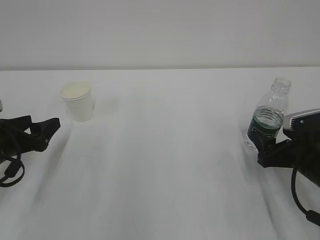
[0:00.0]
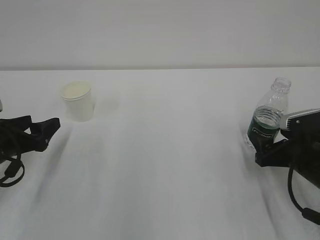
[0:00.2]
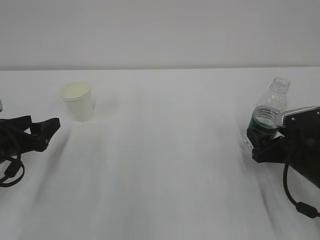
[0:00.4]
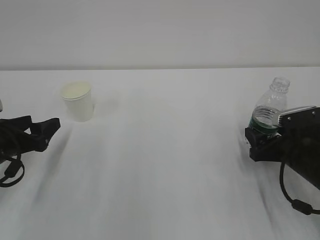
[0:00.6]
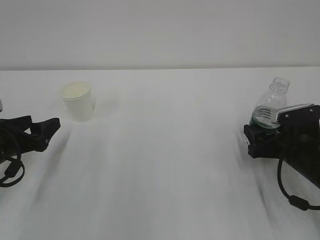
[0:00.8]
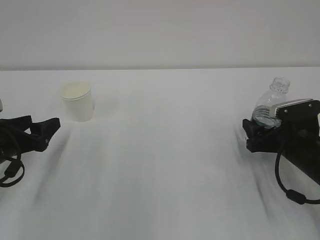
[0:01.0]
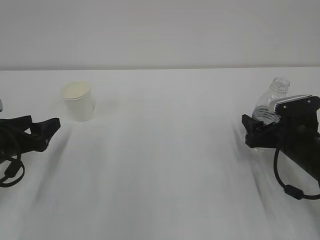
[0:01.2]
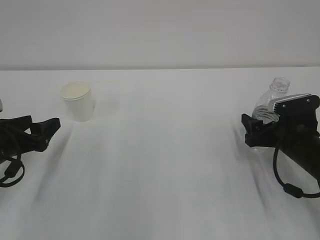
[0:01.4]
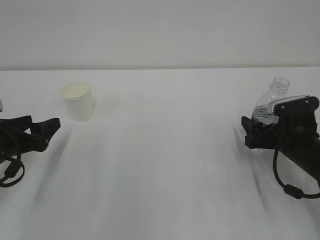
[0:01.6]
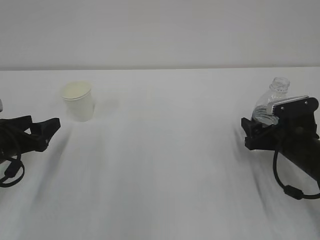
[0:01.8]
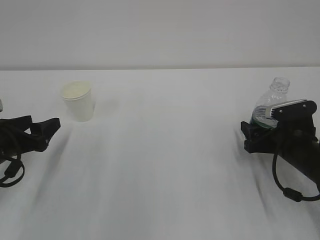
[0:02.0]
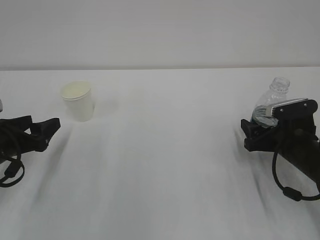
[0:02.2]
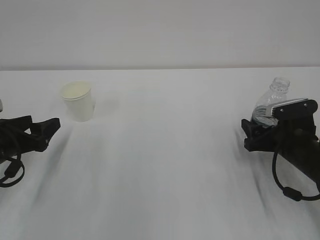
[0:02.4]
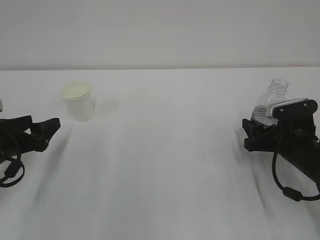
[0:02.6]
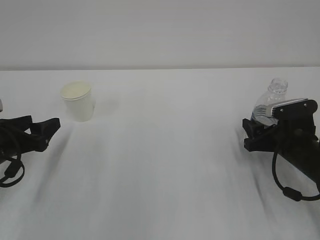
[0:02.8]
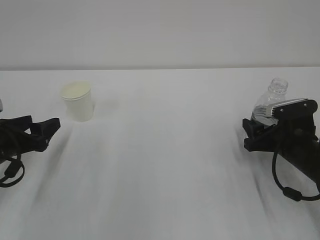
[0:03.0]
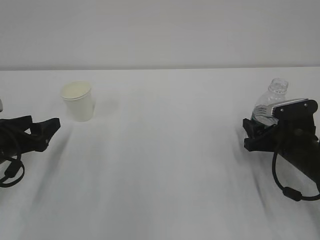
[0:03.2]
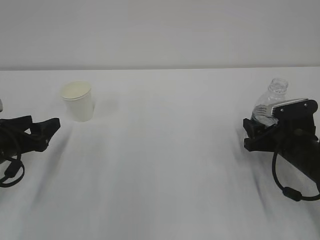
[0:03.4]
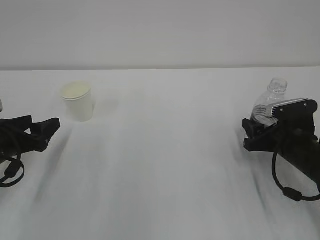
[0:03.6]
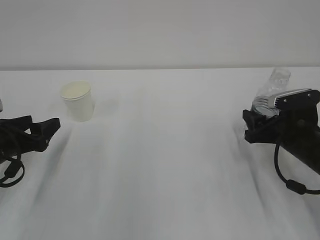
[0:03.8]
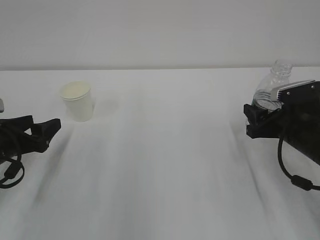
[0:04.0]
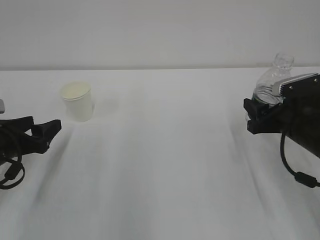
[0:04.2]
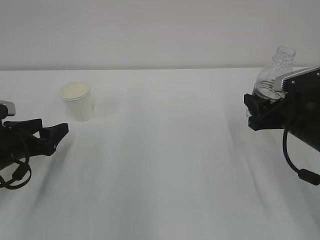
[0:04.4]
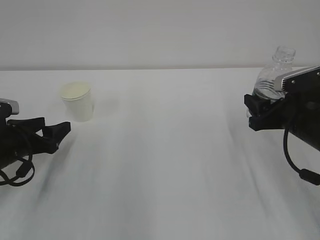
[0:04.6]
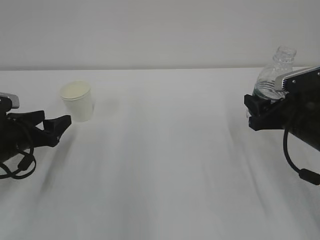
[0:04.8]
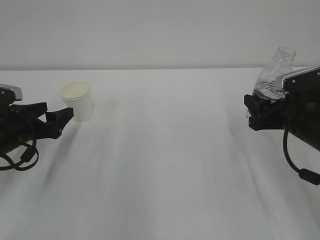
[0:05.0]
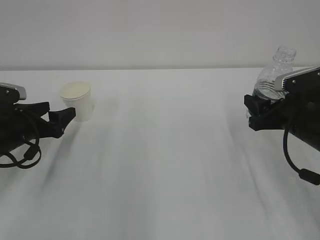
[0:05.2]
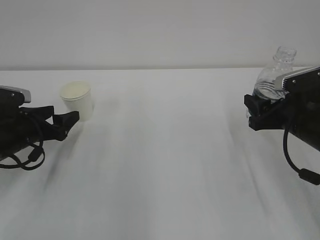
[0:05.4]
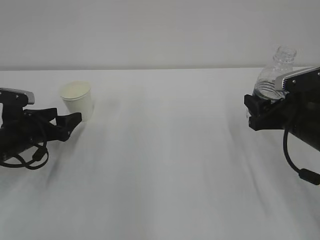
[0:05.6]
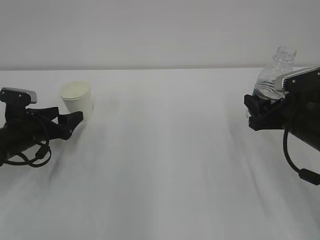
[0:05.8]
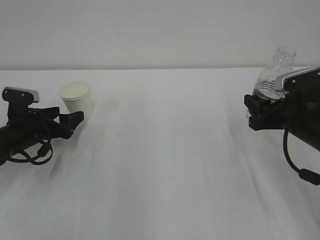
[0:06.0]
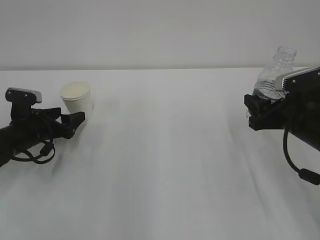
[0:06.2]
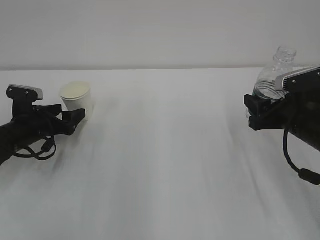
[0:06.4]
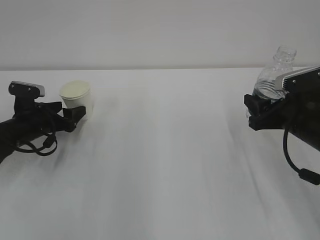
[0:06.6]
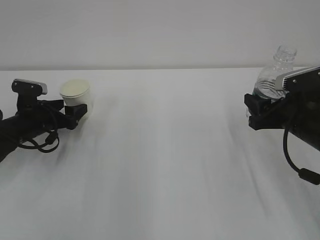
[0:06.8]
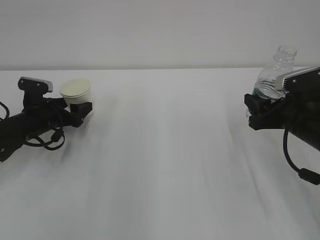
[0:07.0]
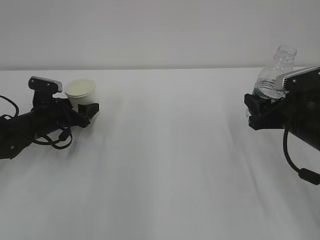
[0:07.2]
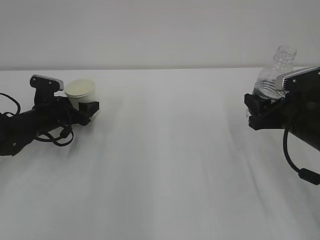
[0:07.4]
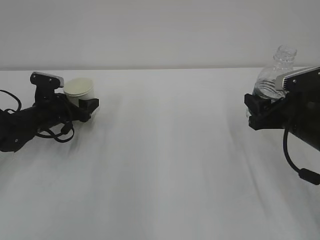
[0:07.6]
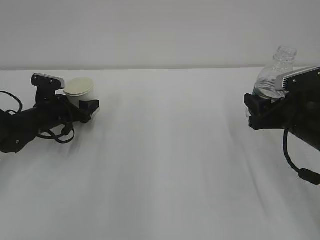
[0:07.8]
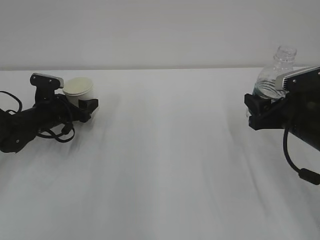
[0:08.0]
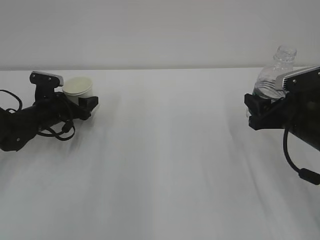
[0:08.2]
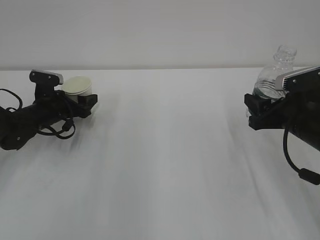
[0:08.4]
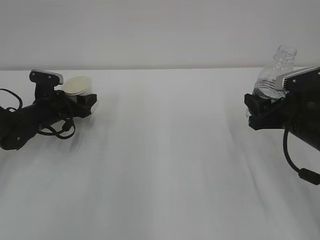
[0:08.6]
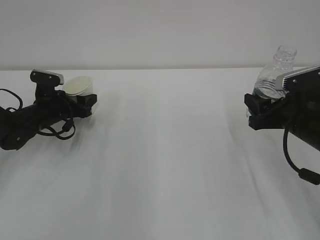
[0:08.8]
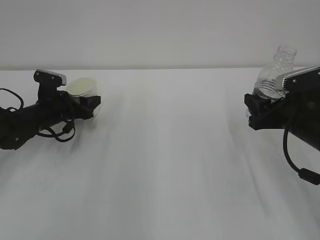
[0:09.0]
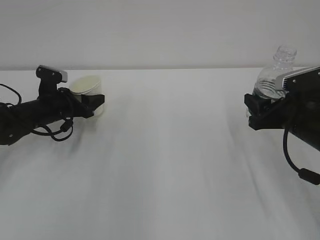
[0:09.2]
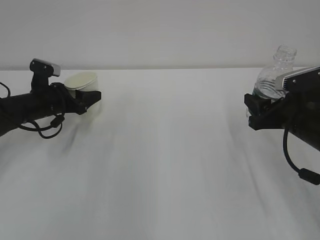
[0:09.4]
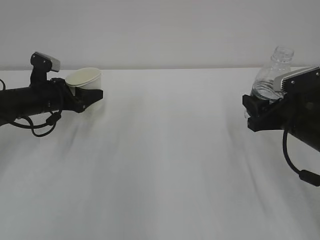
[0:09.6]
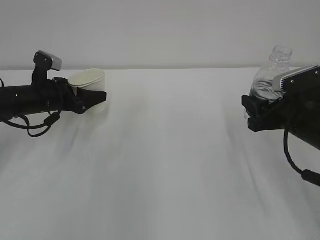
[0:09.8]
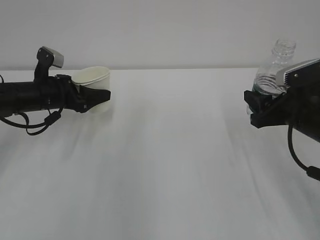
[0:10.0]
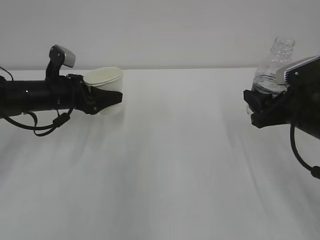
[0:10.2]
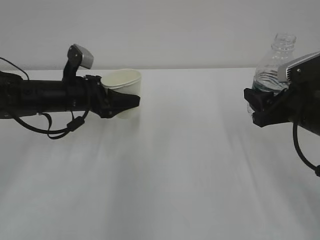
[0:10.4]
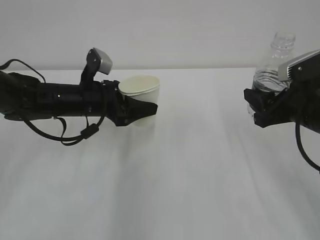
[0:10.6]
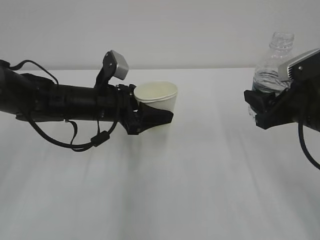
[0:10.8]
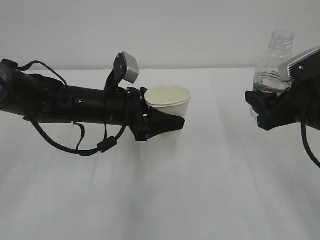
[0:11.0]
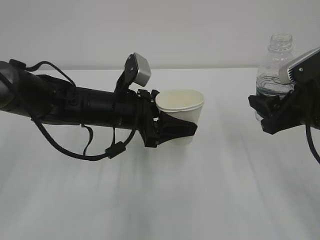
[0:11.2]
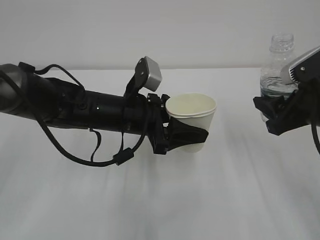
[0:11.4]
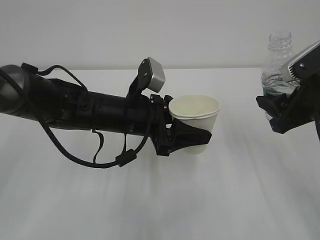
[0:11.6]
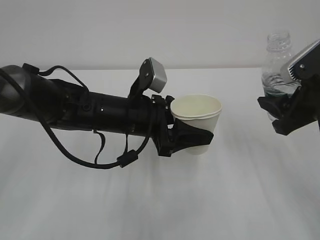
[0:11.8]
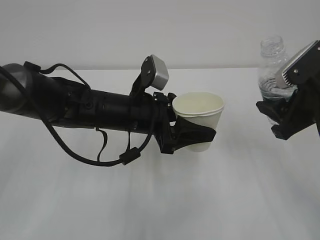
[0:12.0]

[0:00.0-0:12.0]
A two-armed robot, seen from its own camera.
0:00.0 to 0:01.6: The right gripper shifts roughly 5 cm forward.
0:01.6 to 0:03.0: The right gripper closes up.
0:03.0 to 0:04.4: The right gripper moves upward, approximately 5 cm.
0:04.4 to 0:06.0: The left gripper moves forward, about 5 cm.
0:06.0 to 0:07.6: The left gripper goes some 5 cm forward.
0:07.6 to 0:09.0: The left gripper closes up.
0:09.0 to 0:10.4: The left gripper heads upward and to the right, covering some 10 cm.
0:10.4 to 0:12.0: The left gripper goes some 15 cm to the right and backward.

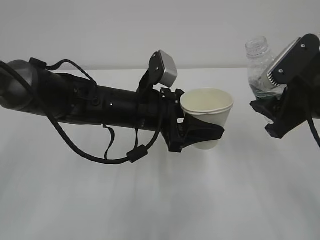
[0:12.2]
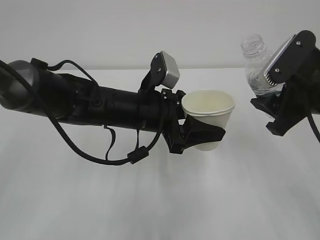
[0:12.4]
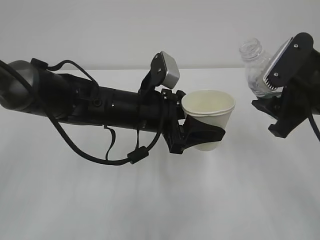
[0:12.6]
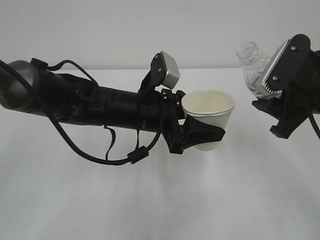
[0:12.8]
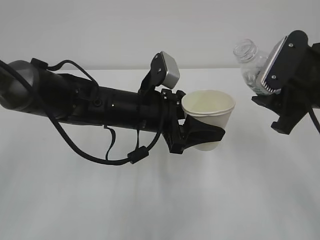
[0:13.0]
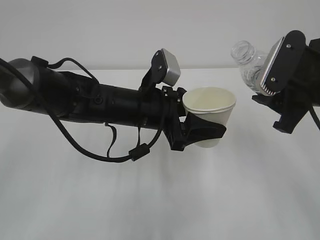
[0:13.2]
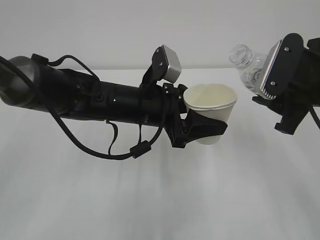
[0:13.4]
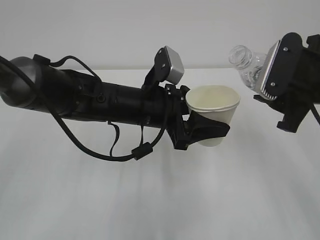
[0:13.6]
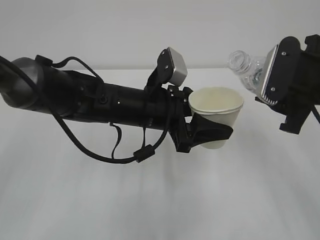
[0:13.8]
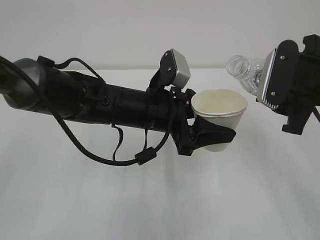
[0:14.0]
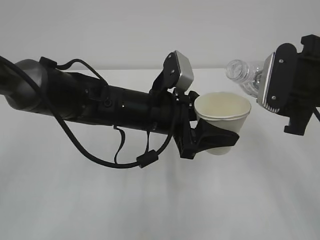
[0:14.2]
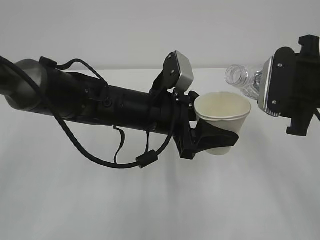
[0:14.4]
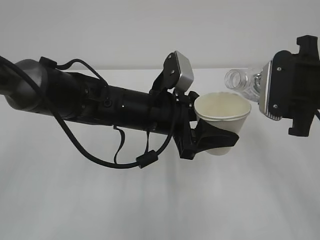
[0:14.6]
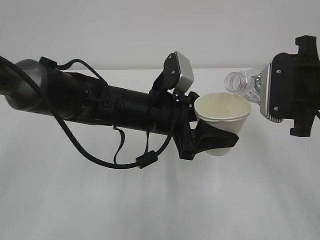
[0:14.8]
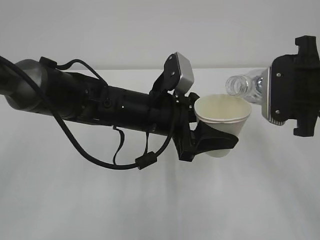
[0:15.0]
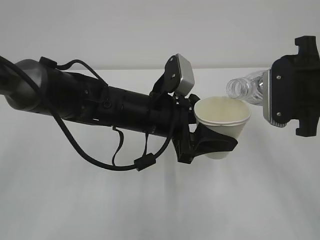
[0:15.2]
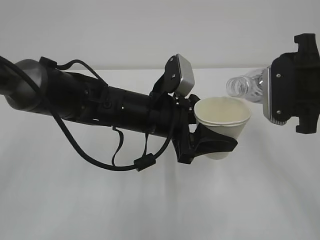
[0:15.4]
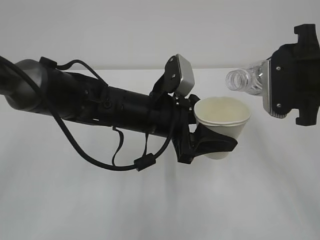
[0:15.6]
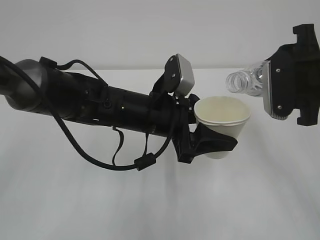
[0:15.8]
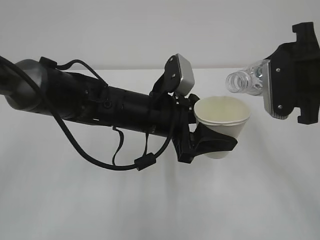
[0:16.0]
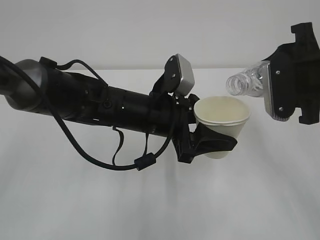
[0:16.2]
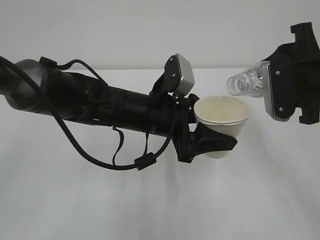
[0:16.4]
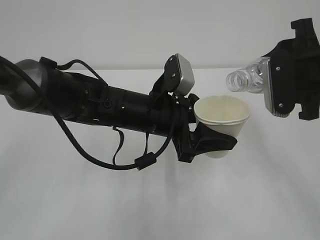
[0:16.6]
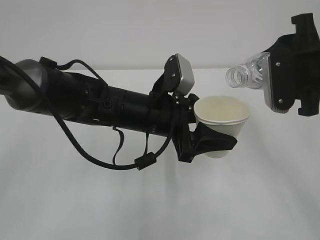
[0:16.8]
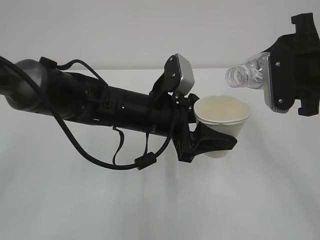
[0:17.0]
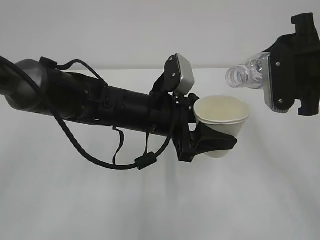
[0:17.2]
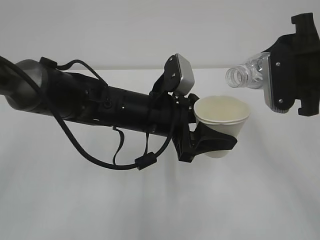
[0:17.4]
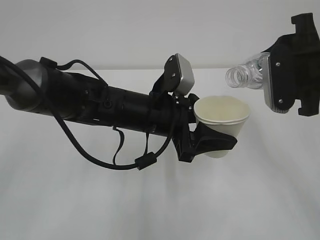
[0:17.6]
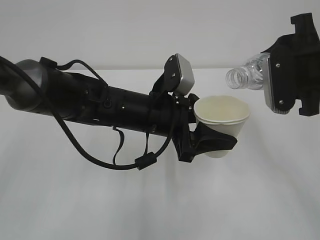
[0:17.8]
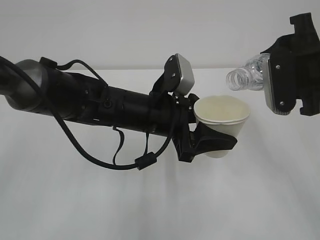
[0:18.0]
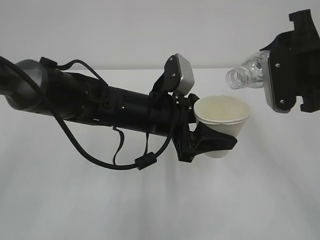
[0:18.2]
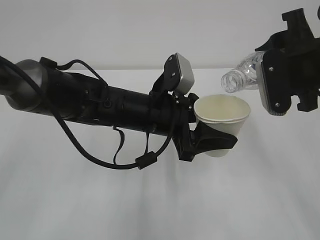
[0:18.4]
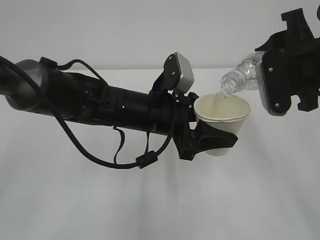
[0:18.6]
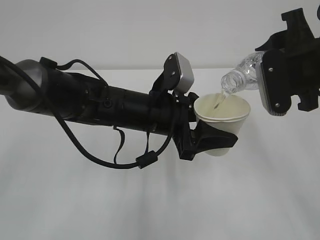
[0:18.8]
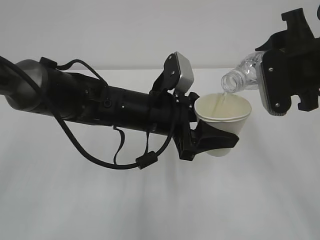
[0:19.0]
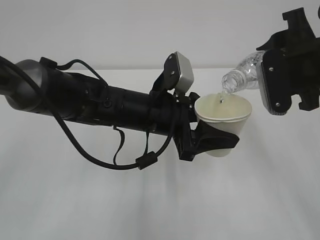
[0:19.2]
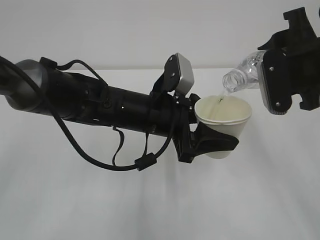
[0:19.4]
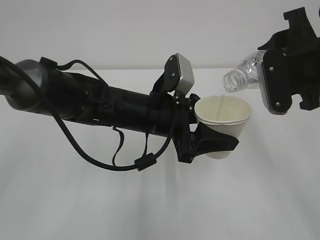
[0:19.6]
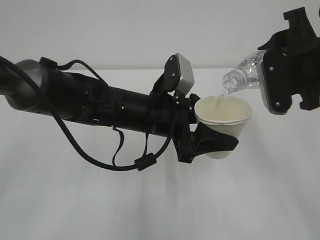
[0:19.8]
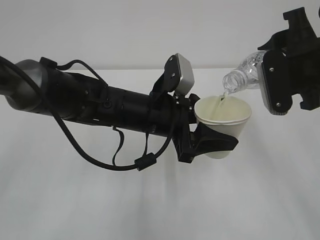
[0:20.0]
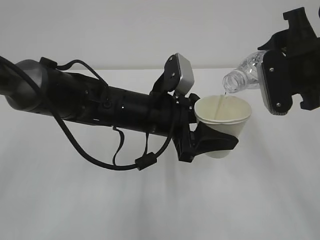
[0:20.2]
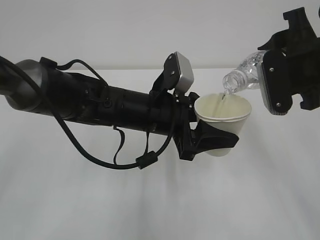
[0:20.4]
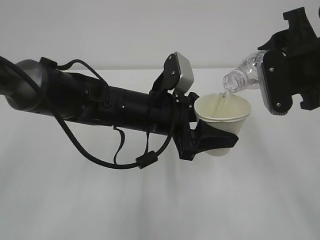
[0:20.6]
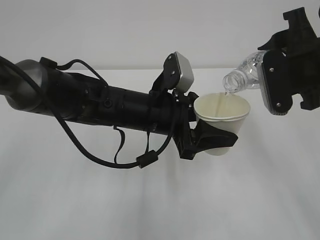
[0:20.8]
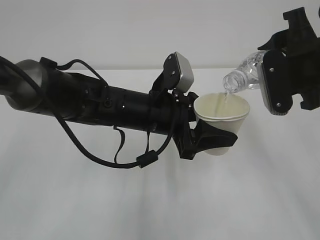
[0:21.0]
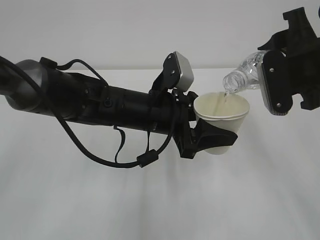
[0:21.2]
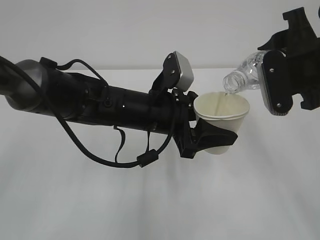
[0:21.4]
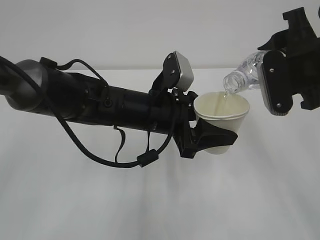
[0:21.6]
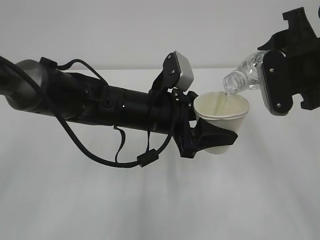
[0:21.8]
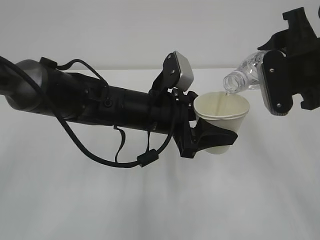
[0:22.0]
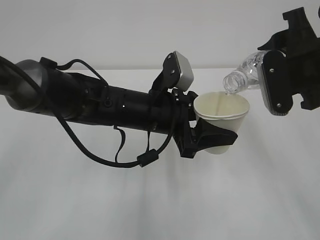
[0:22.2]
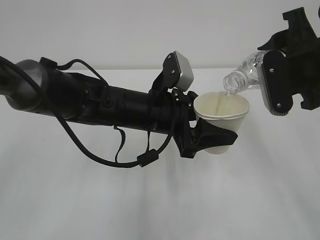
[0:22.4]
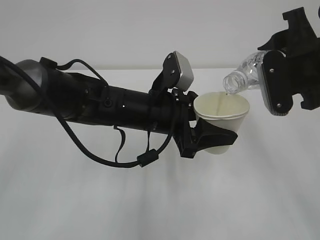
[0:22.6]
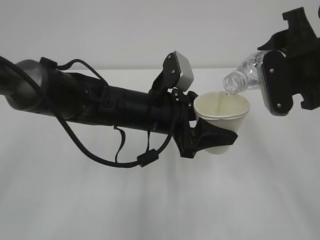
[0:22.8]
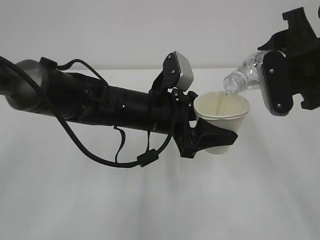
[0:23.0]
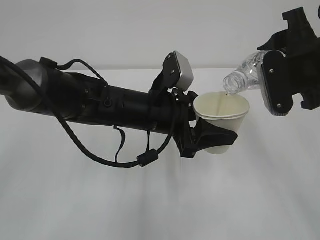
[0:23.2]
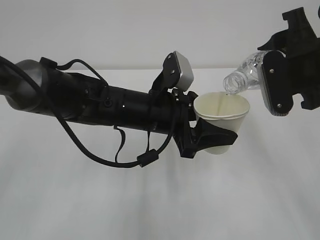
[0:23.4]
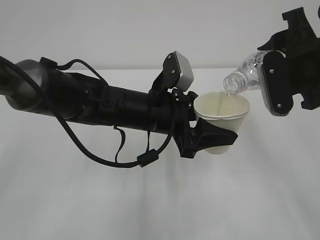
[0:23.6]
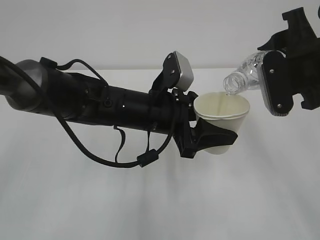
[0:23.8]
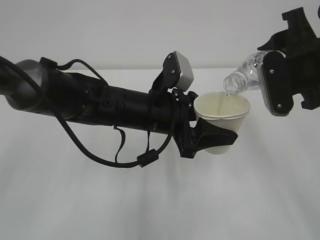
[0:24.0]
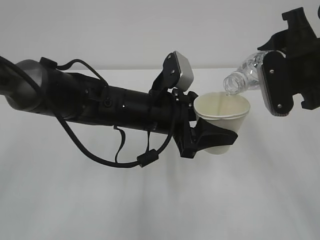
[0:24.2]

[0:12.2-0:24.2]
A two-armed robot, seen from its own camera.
0:13.8 to 0:15.2: There are only small adjustments of the grippers.
0:15.2 to 0:16.6: The grippers stay close to where they were, moving slightly.
0:16.6 to 0:18.2: Both grippers stay about where they are.
0:18.2 to 0:19.8: The two grippers keep their place.
0:19.8 to 0:24.2: Neither gripper changes place.
